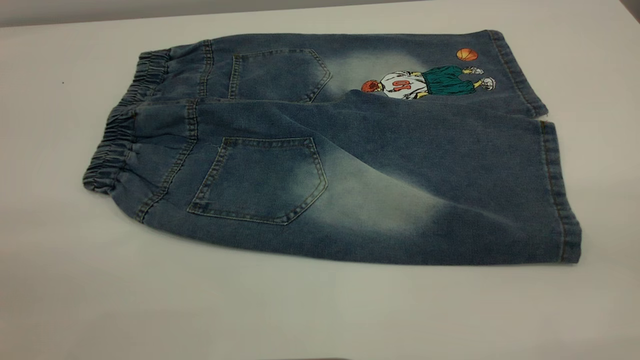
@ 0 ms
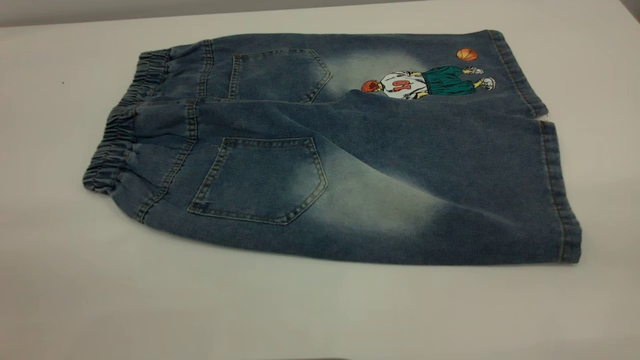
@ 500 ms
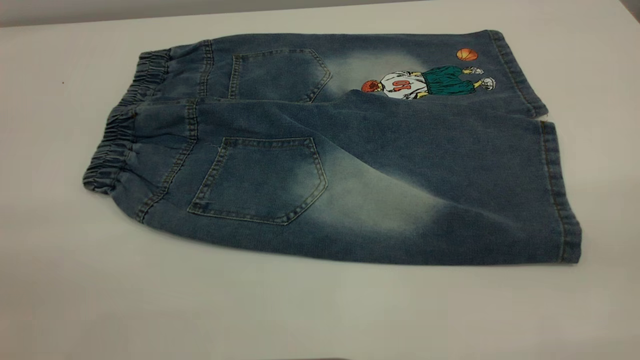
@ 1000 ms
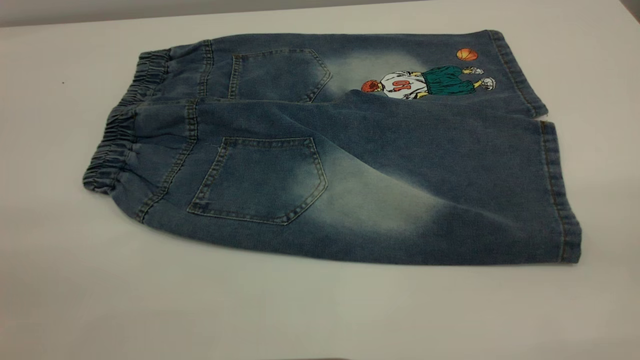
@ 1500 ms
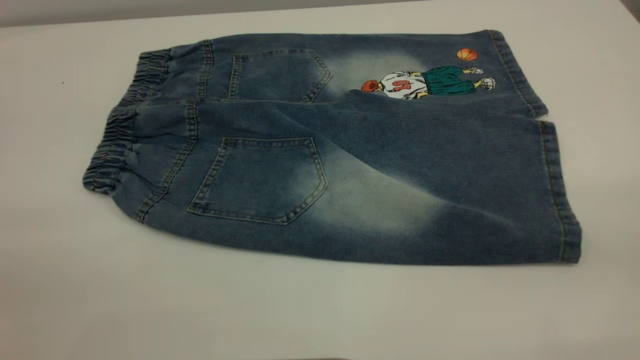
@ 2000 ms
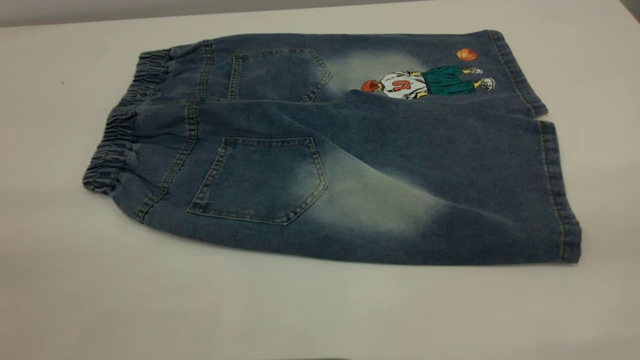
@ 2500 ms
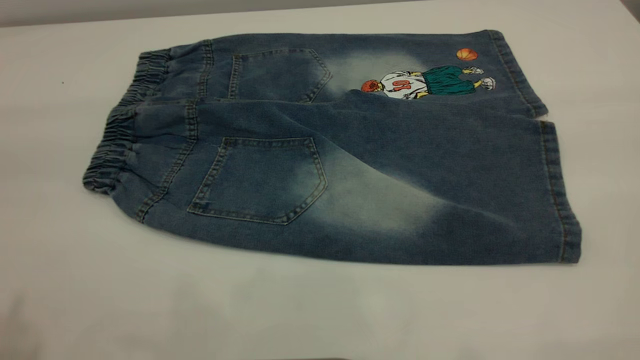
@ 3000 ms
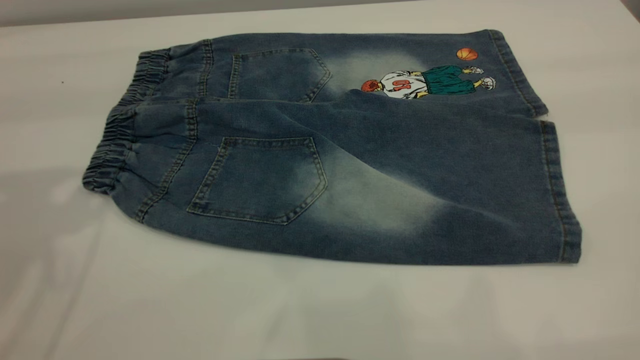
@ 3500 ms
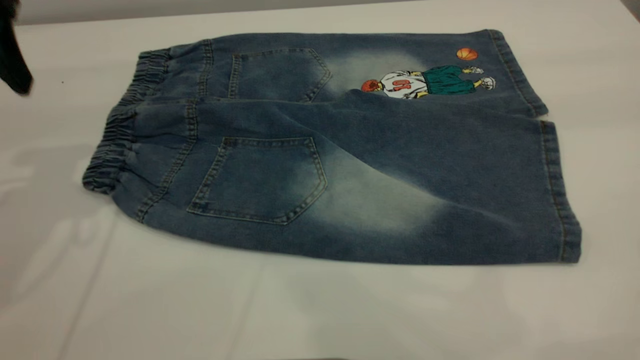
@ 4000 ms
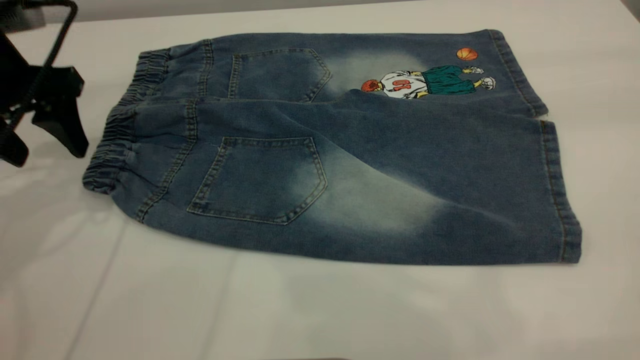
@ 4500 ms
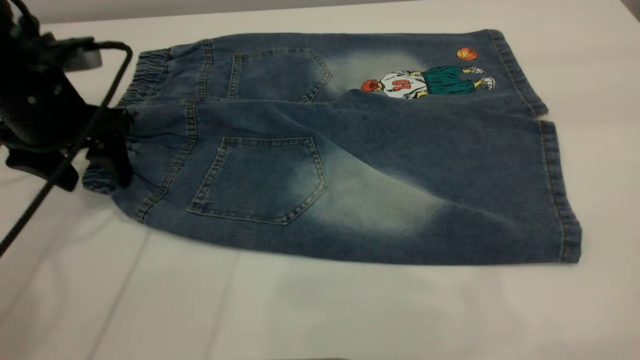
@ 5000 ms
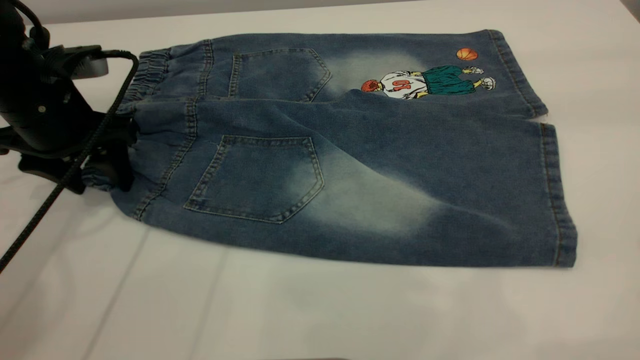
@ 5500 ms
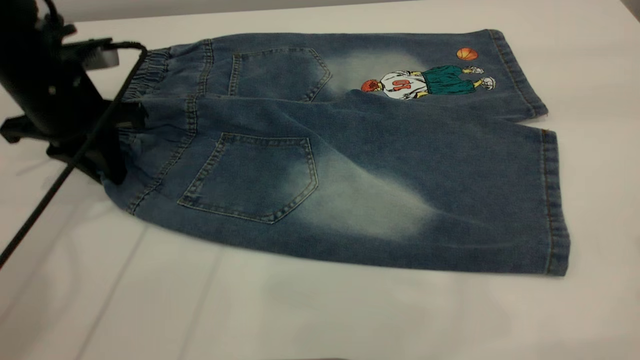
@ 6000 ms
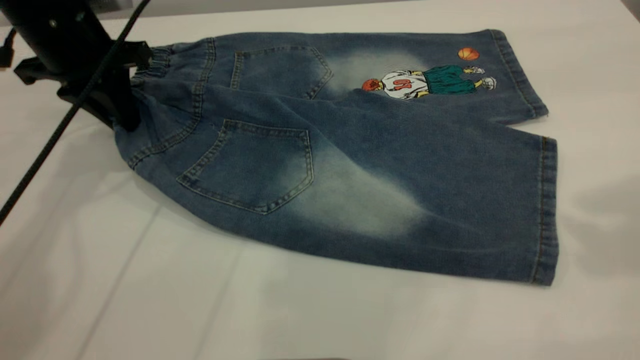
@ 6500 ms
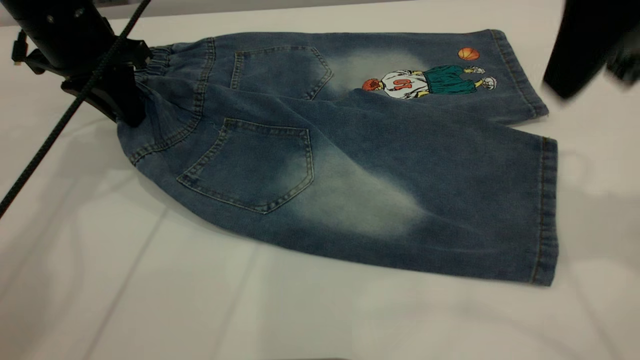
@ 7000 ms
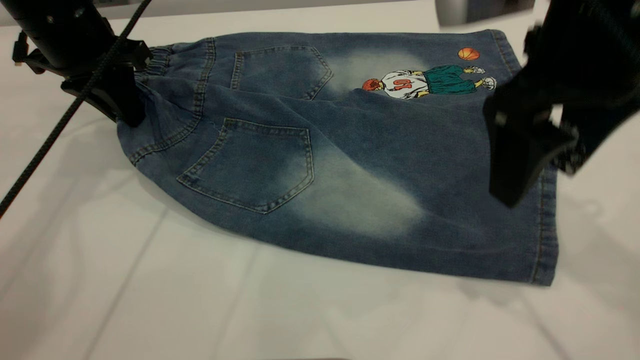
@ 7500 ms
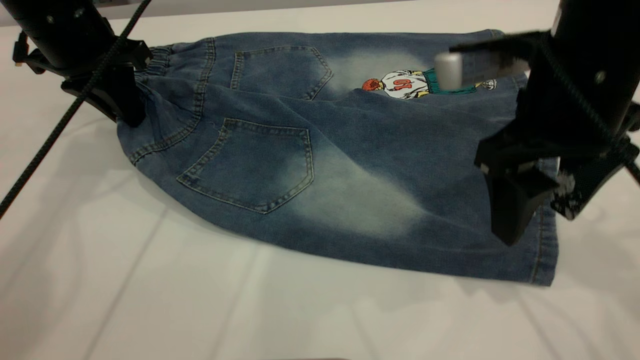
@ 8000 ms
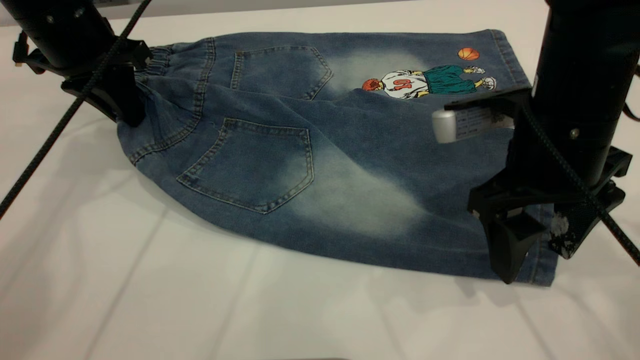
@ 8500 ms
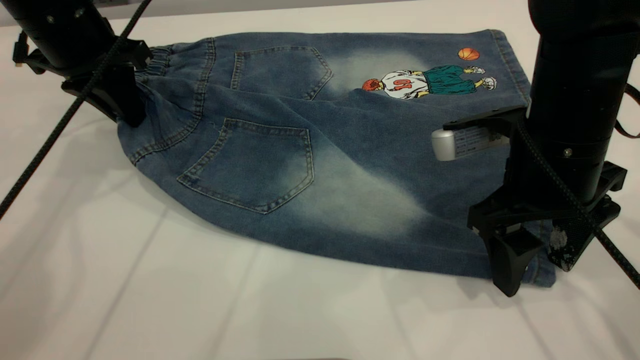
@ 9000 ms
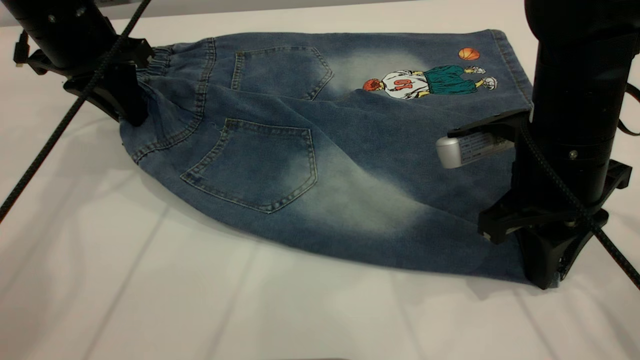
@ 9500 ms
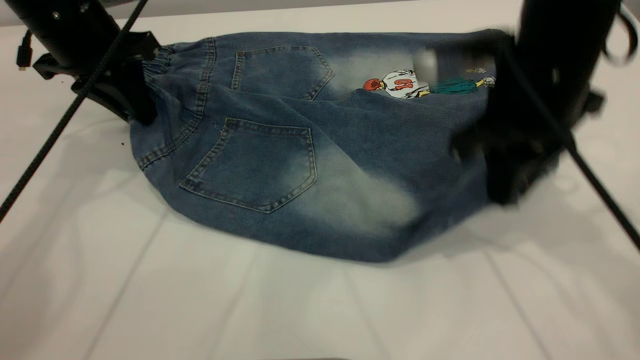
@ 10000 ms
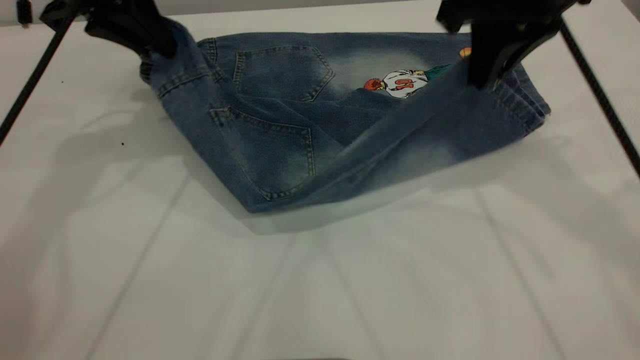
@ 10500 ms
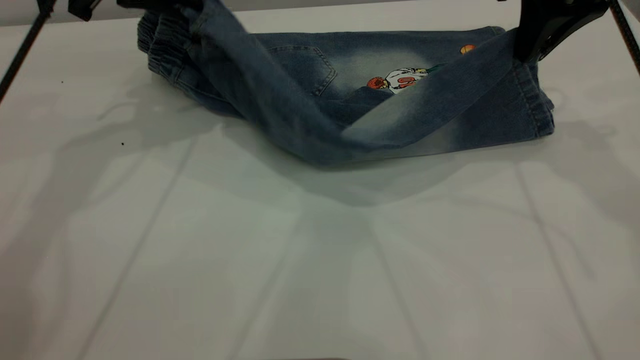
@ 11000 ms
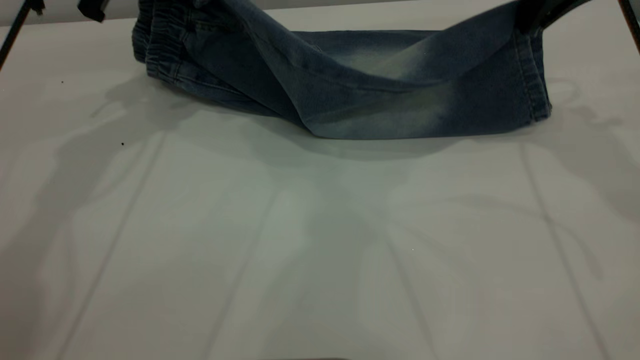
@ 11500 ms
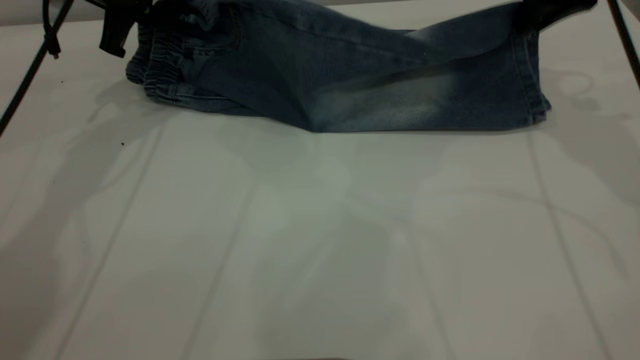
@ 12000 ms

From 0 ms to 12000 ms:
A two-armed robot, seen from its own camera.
From 0 ms to 2000 ms: Both grippers stay put.
From 2000 ms to 4000 ms: The left gripper moves forward, about 35 cm.
From 4000 ms to 6000 ms: The left gripper shifts roughly 10 cm downward and forward, and closes up.
From 6000 ms to 8000 ms: The left gripper ends up some 5 cm from where it was, while the right gripper goes roughly 30 cm downward, to the left and forward.
From 8000 ms to 10000 ms: The right gripper closes its fingers.
From 10000 ms to 12000 ms: The right gripper shifts about 15 cm forward and to the right. The left gripper moves forward, about 5 cm.

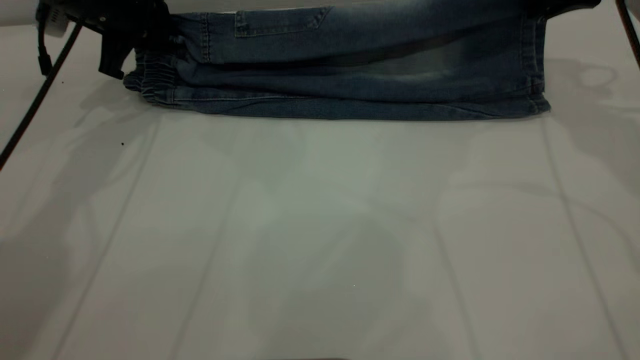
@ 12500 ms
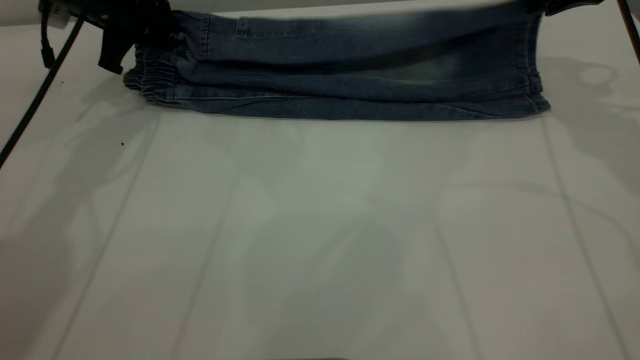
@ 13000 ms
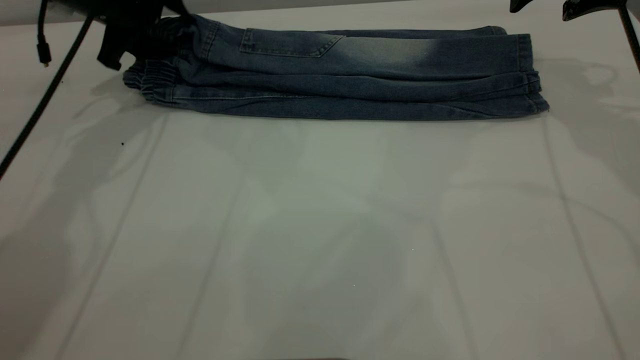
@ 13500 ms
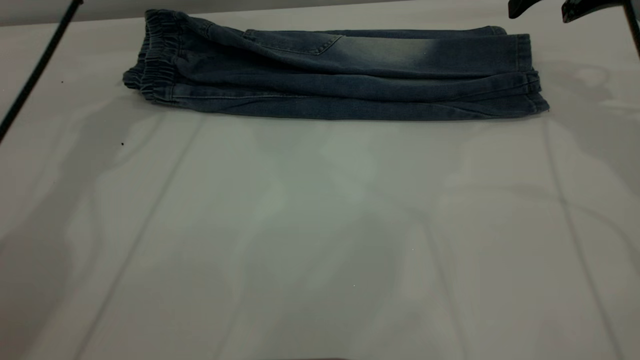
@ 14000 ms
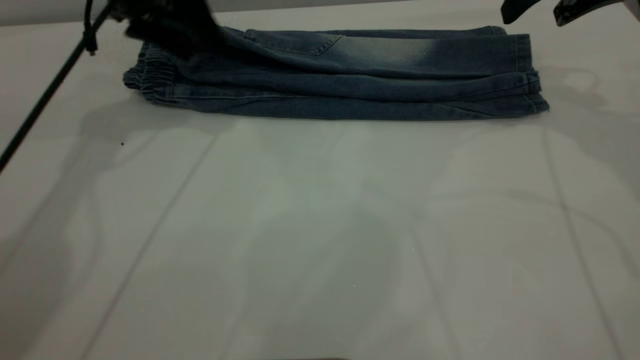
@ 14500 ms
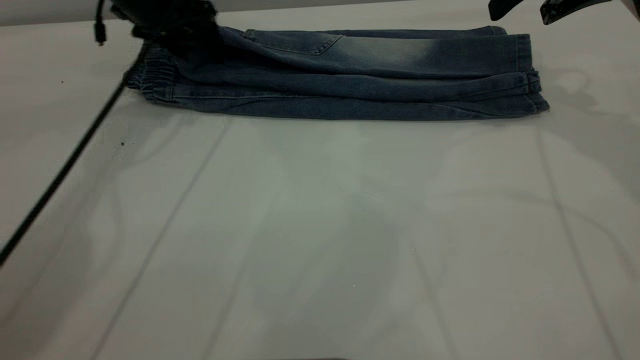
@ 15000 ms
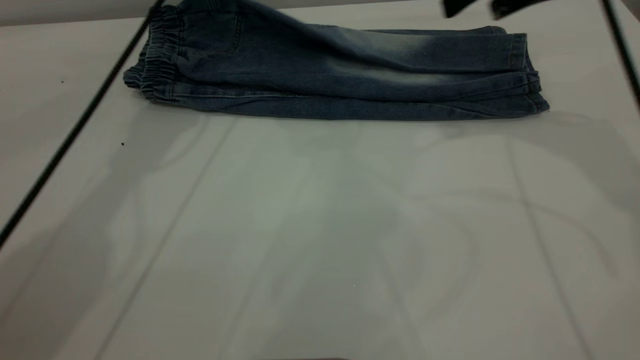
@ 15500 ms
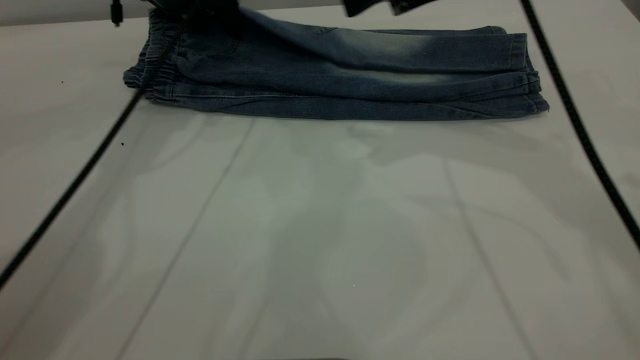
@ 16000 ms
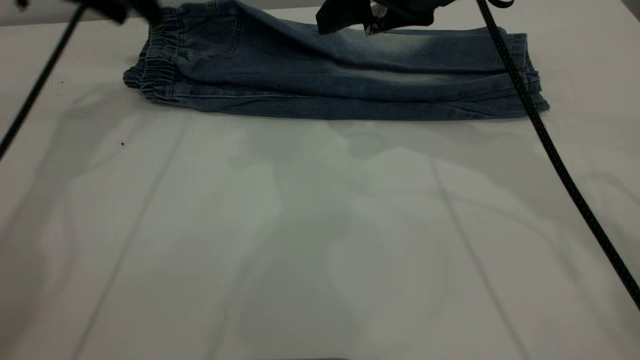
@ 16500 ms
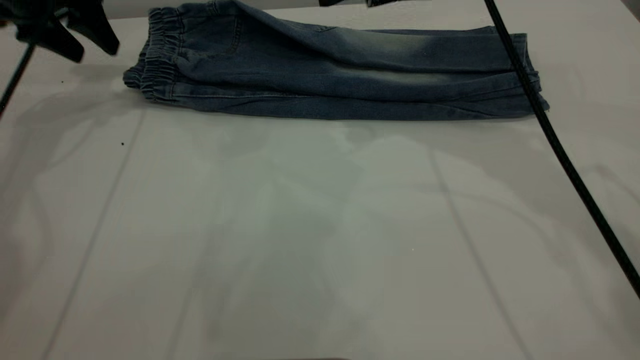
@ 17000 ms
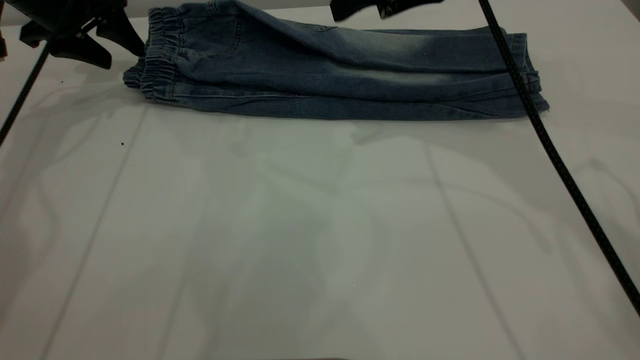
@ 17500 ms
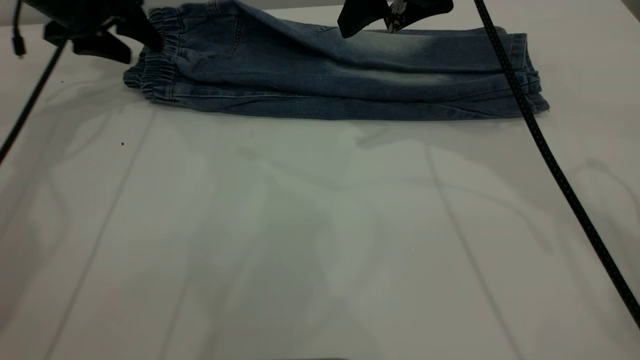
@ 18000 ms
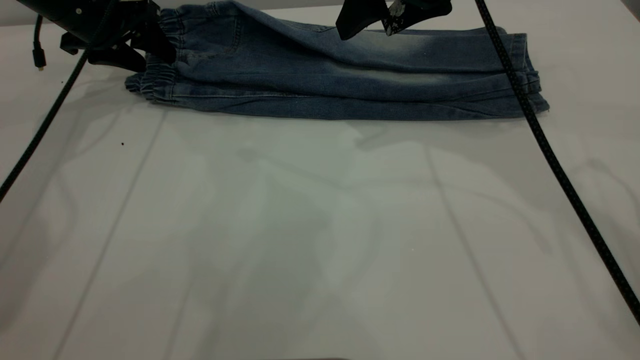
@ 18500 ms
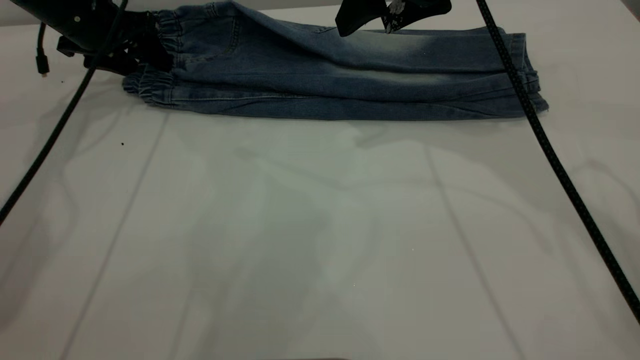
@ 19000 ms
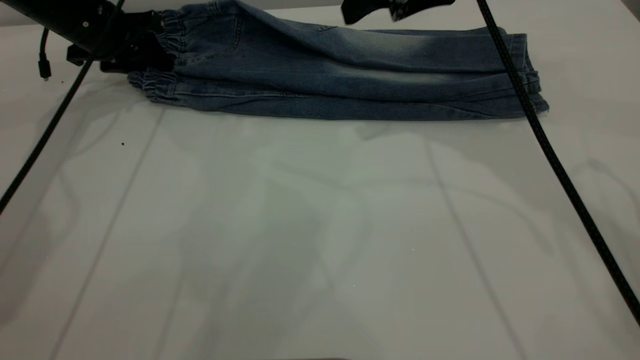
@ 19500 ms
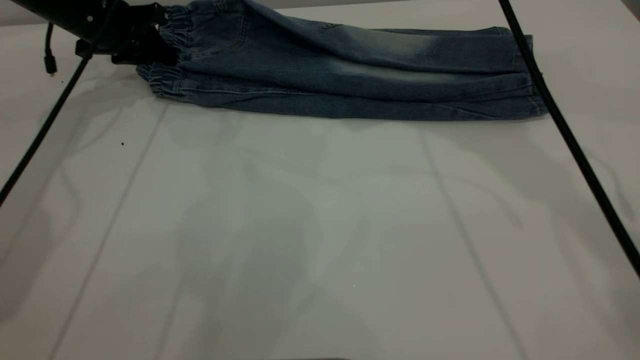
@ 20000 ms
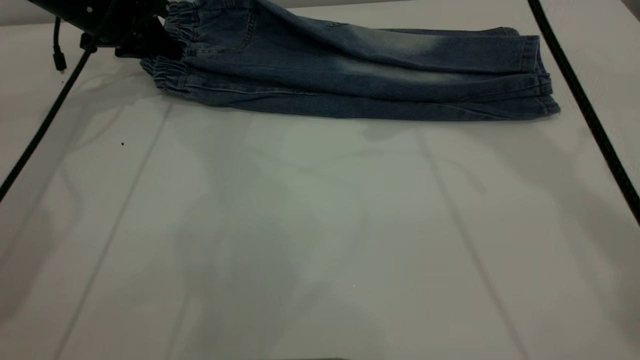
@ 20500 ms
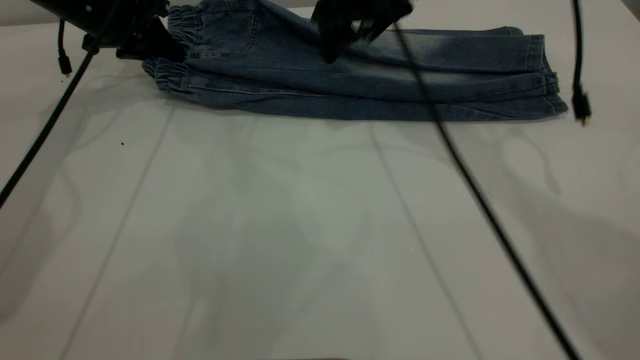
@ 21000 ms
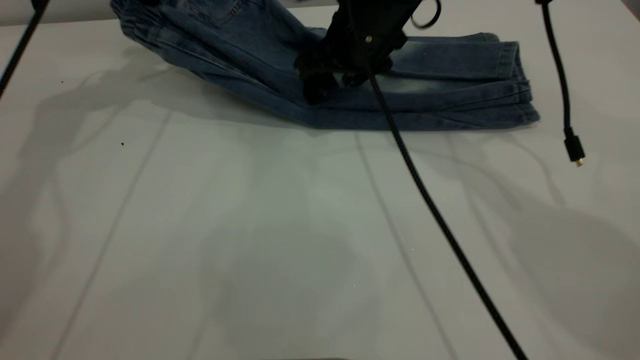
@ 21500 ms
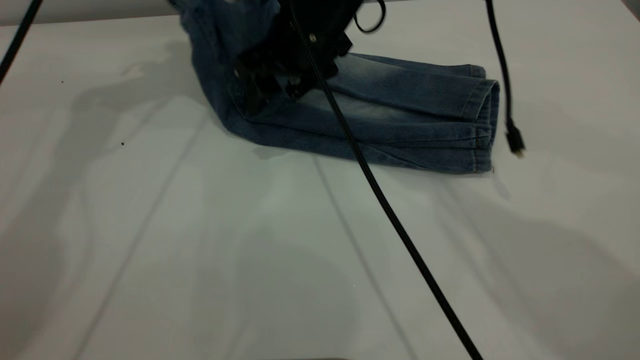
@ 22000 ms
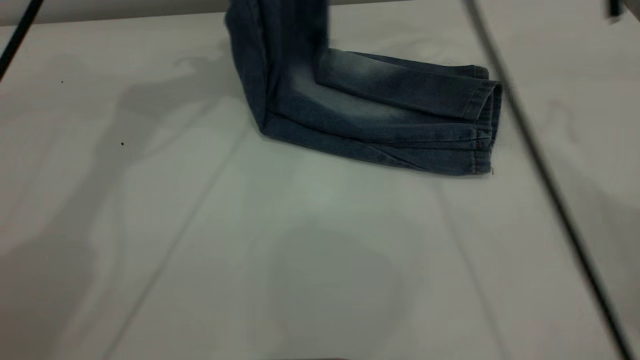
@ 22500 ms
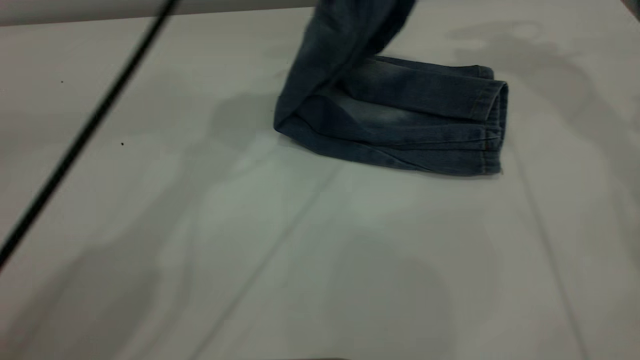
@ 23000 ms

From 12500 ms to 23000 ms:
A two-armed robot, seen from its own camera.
From 12500 ms to 14500 ms: The left gripper opens, while the right gripper opens.
From 14500 ms to 16500 ms: The right gripper travels to the left by some 15 cm; the left gripper shifts about 5 cm to the left.
From 16500 ms to 19000 ms: The left gripper shifts about 10 cm downward.
From 19000 ms to 21000 ms: The left gripper closes up; the right gripper heads to the left, covering roughly 5 cm, and goes upward and returns, approximately 10 cm each way.
From 21000 ms to 23000 ms: The right gripper moves upward and to the right, some 25 cm; the left gripper heads to the right and upward, covering about 30 cm.
